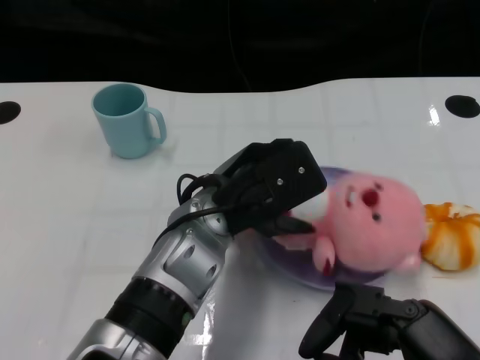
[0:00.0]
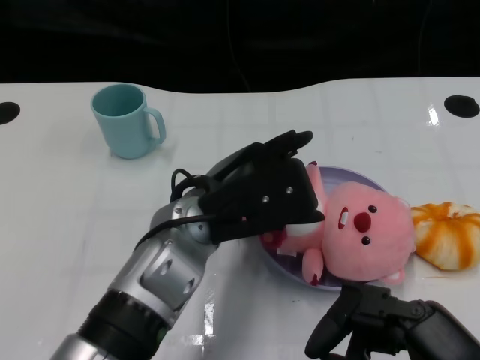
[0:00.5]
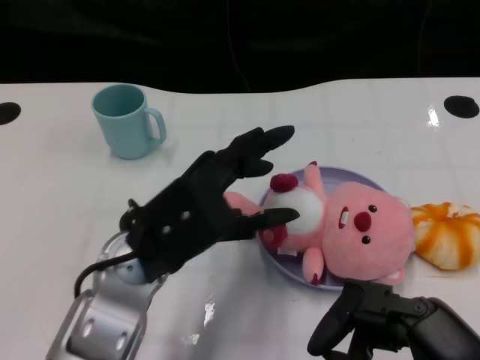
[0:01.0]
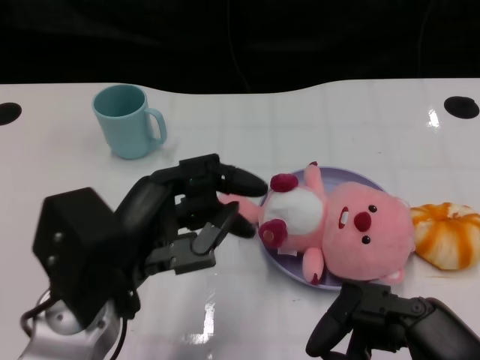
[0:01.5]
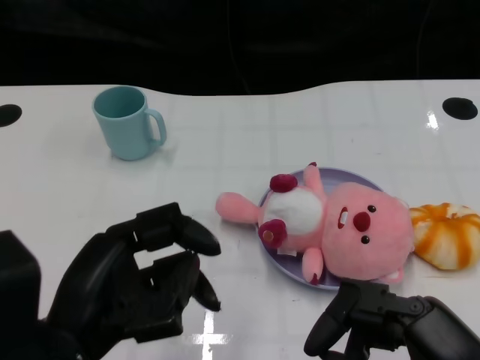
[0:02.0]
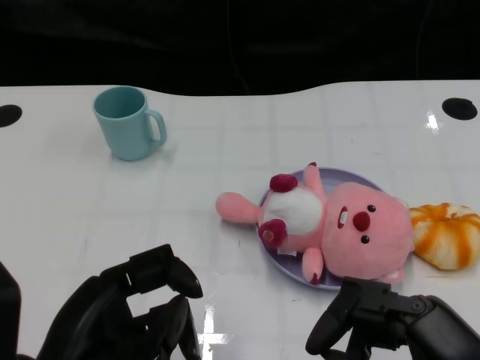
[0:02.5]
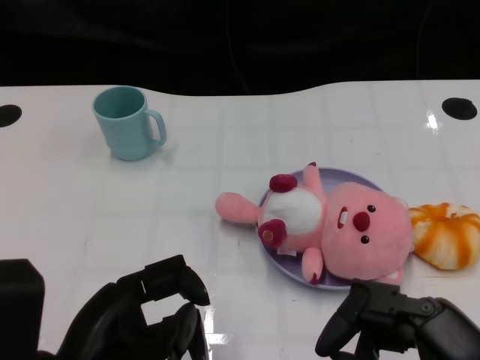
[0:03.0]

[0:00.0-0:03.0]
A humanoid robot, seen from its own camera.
Task of the whole recording: Pick up the doll on one side of the plate and place it into the plate.
0:00.0 to 0:01.5: The left hand goes approximately 15 cm to the left and backward.
0:01.5 to 0:03.0: The left hand moves backward, approximately 5 cm.

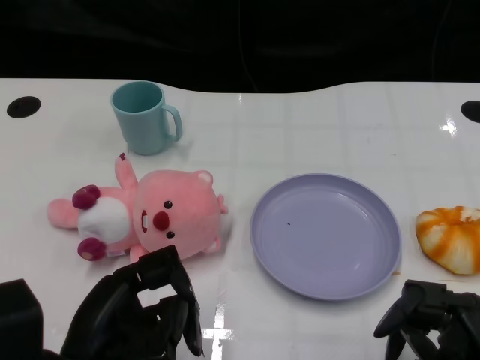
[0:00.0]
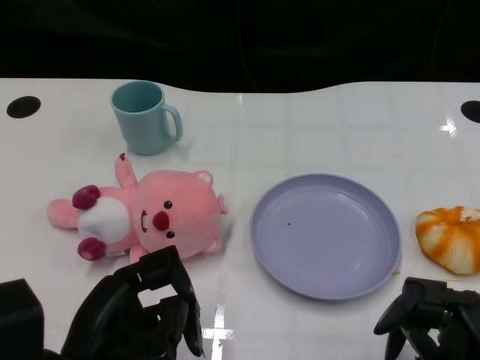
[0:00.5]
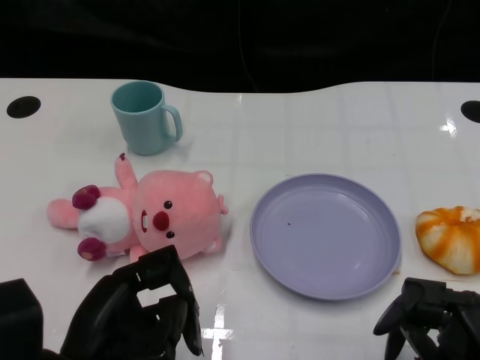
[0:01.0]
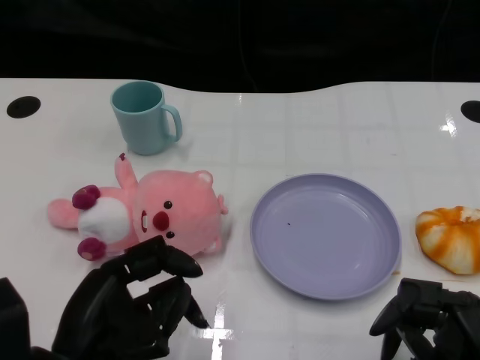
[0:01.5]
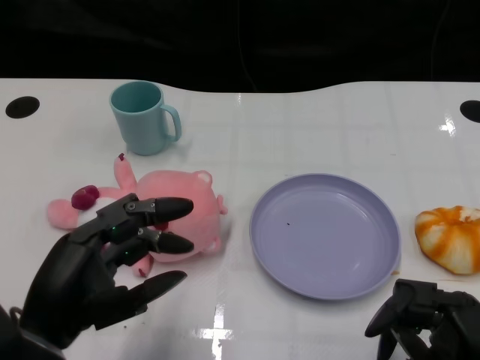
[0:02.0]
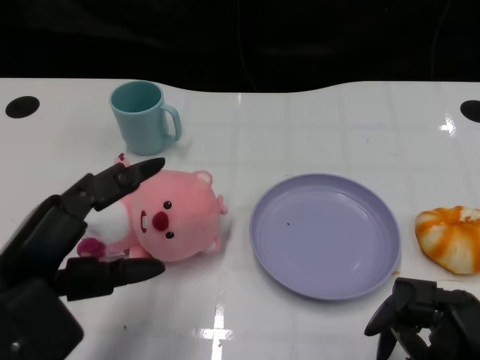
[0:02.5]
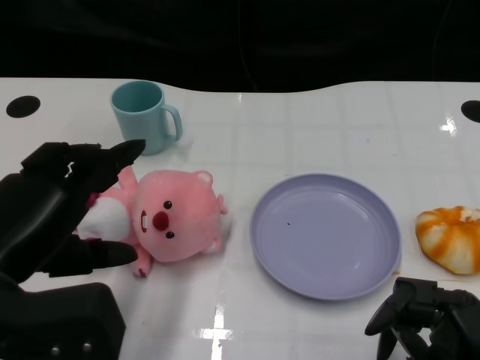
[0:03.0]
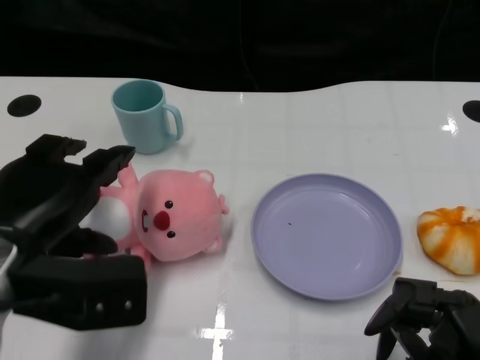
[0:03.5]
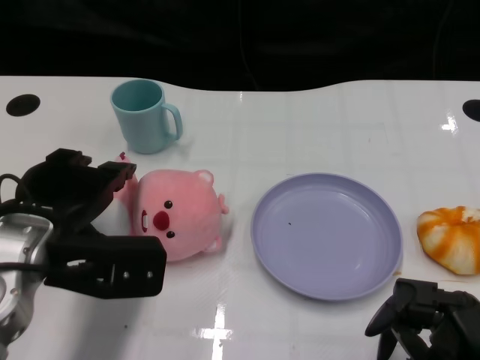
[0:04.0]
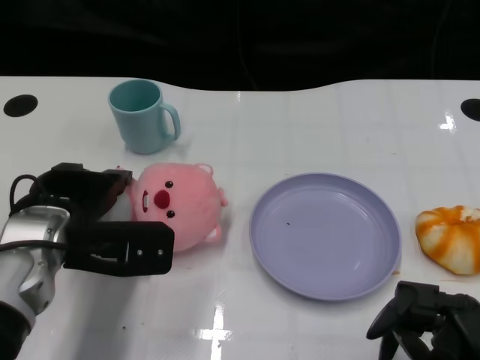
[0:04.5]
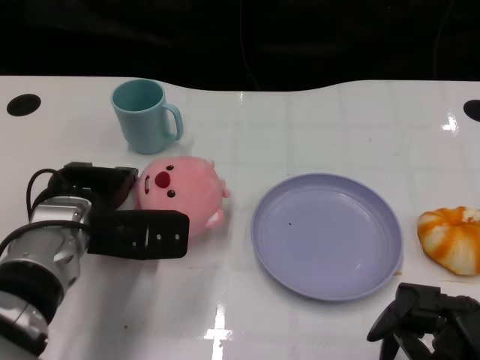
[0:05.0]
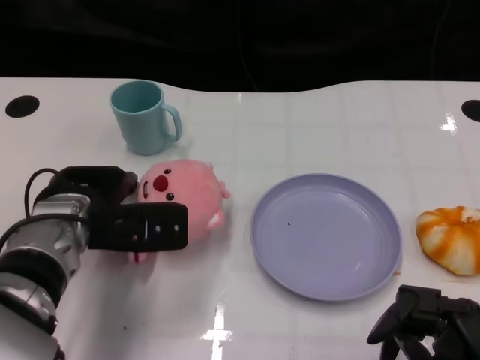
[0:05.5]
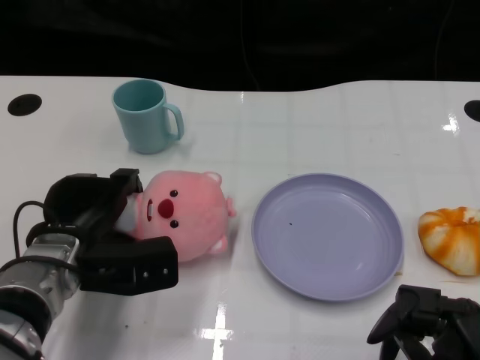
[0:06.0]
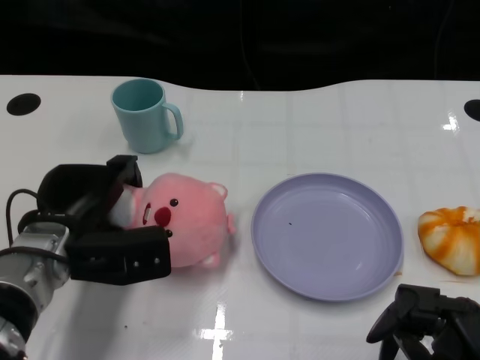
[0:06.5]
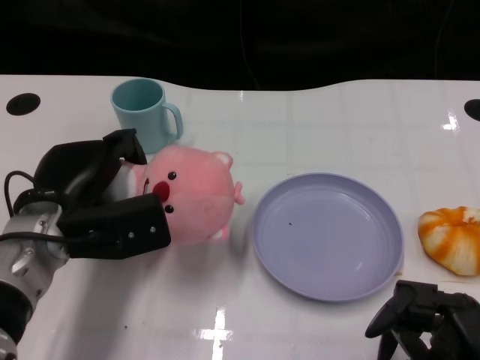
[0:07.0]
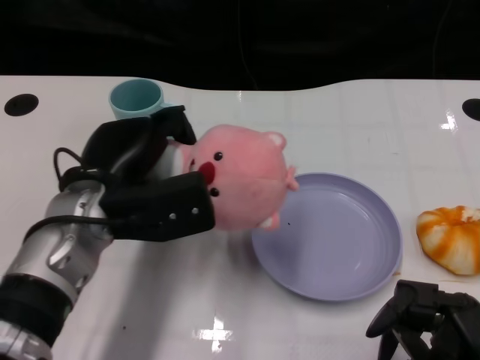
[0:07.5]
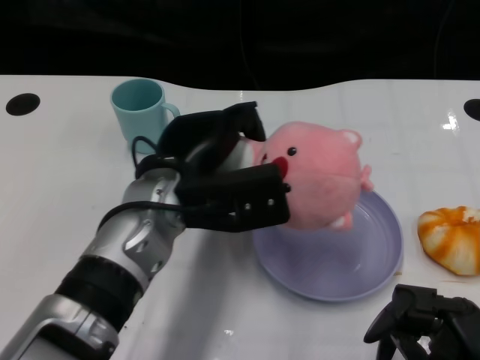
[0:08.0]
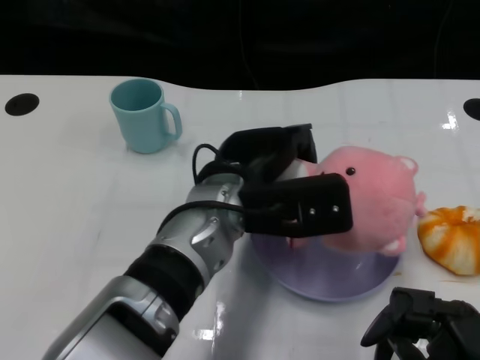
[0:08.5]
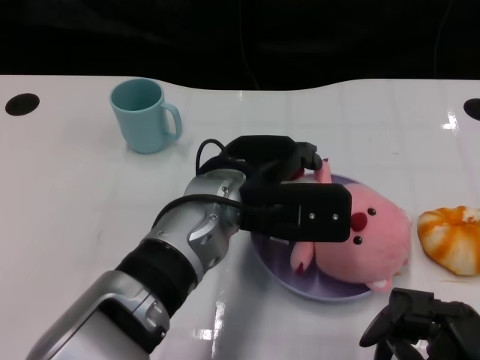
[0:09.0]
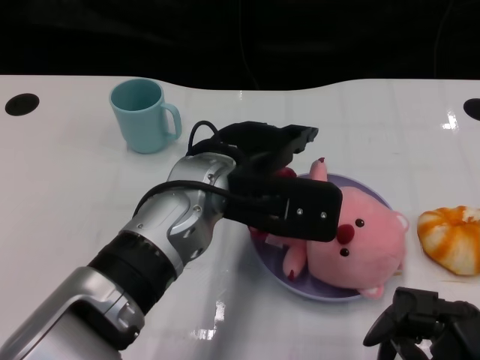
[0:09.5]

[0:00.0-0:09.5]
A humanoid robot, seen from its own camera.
Task of the whole recording: Pick up the doll on one side of the plate and place it into the plate.
Step, 0:01.0 to 0:06.5: Grasp the pink doll with the left gripper.
0:02.0 to 0:04.0: The left hand shifts about 10 cm forward.
0:04.0 to 0:05.5: The left hand is displaced forward by about 5 cm.
0:07.5 to 0:09.5: The left hand moves to the right, roughly 10 cm.

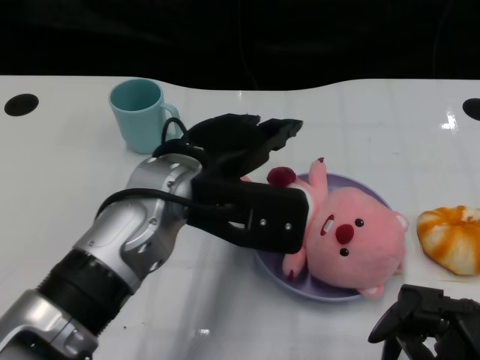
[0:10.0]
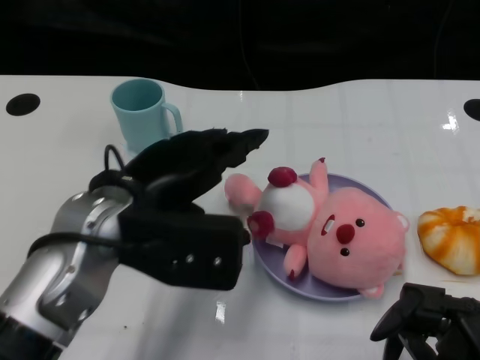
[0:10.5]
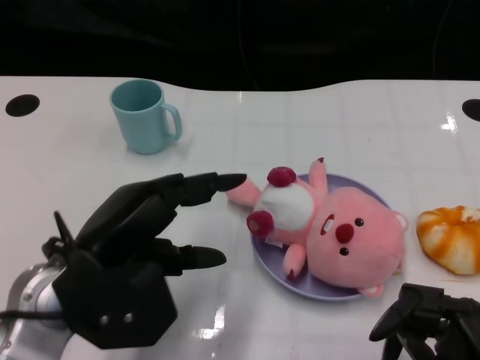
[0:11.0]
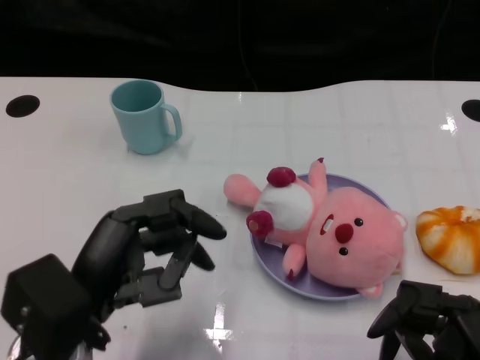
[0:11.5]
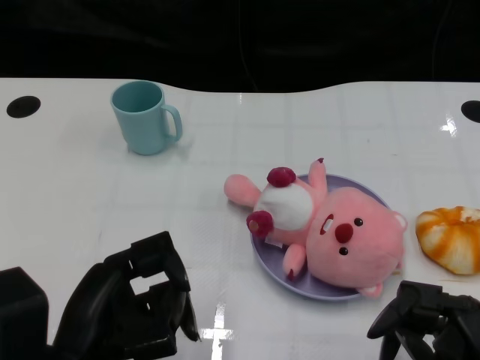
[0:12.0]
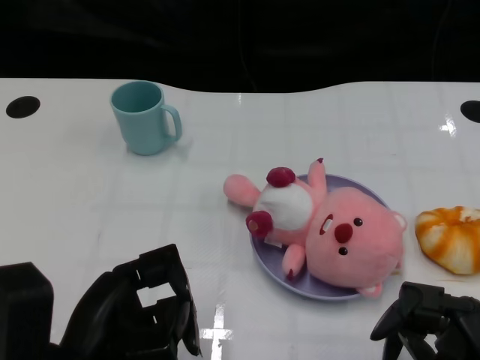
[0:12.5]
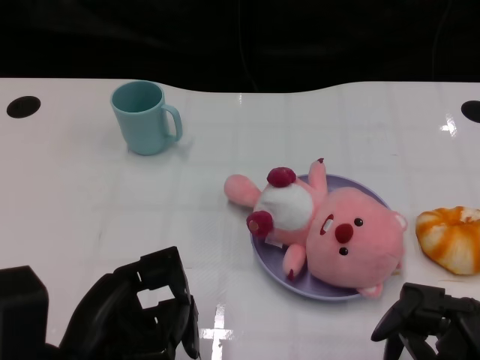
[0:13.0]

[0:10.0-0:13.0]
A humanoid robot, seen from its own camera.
Task of the whole recording: Pick up the doll on one side of the plate and place it into the plate.
0:10.0 to 0:11.5: The left hand shifts some 15 cm to the left, backward and downward.

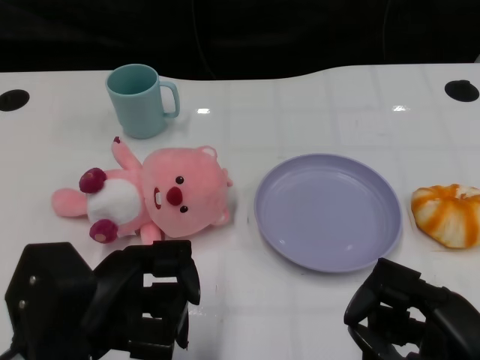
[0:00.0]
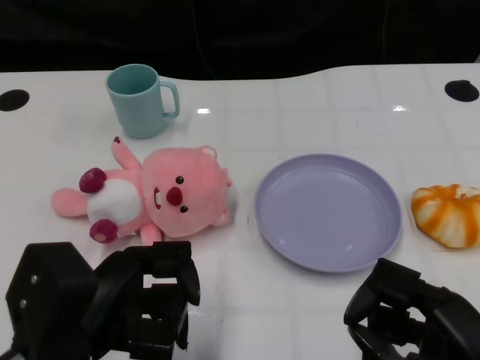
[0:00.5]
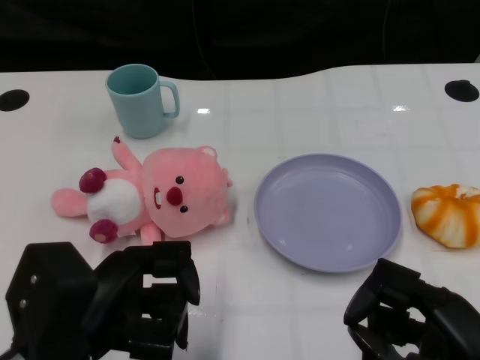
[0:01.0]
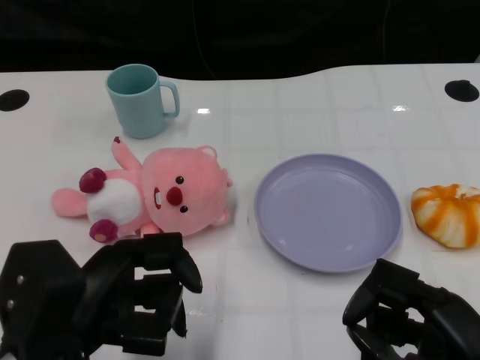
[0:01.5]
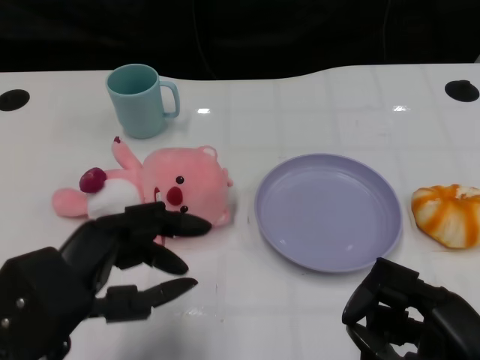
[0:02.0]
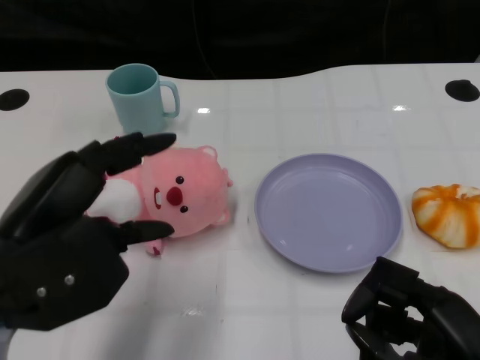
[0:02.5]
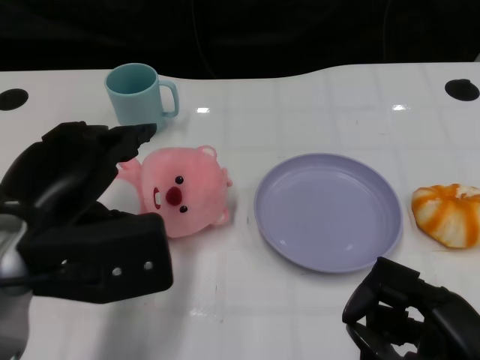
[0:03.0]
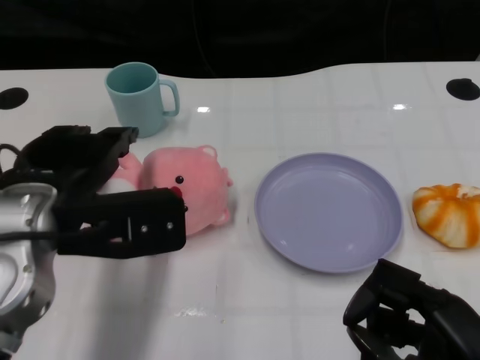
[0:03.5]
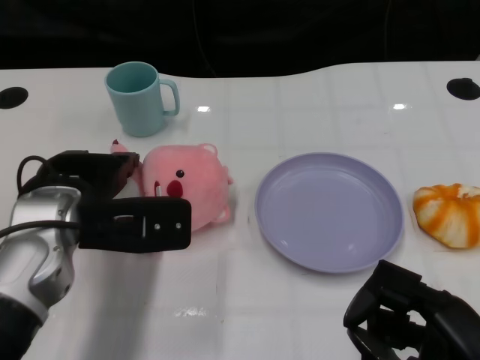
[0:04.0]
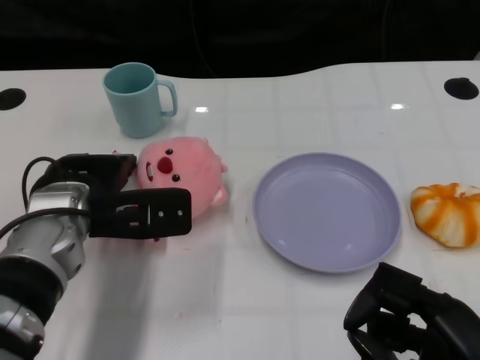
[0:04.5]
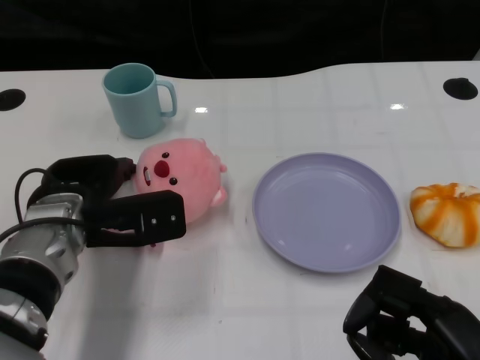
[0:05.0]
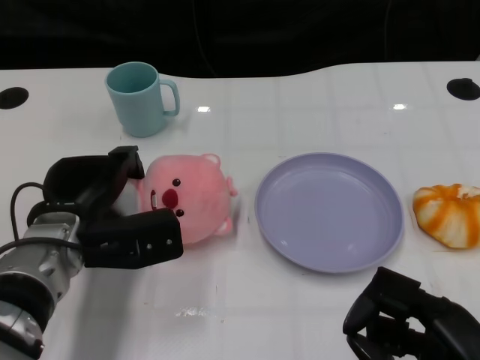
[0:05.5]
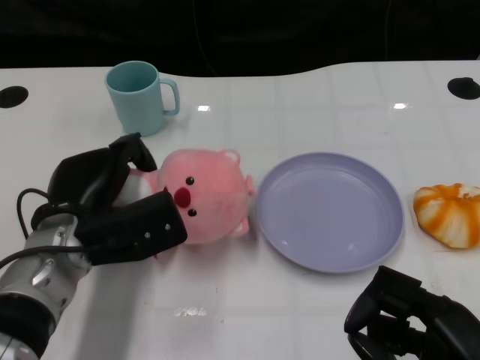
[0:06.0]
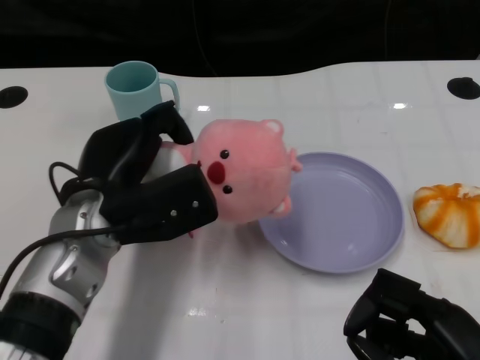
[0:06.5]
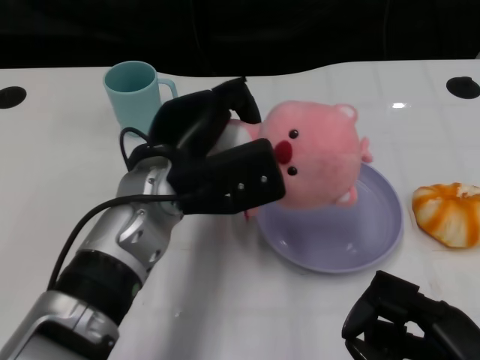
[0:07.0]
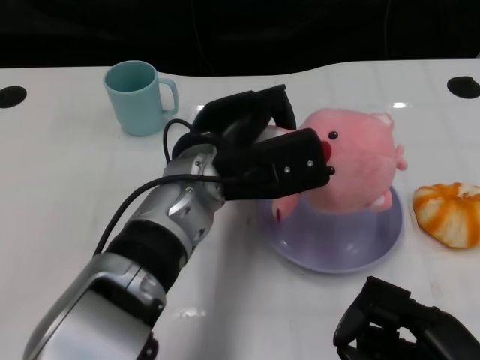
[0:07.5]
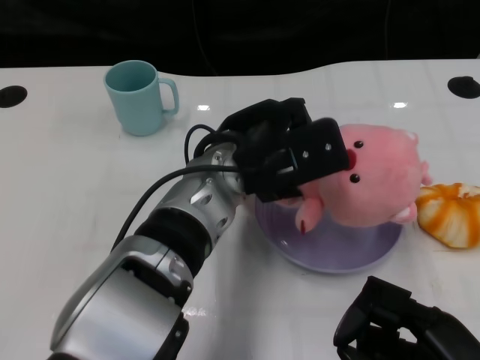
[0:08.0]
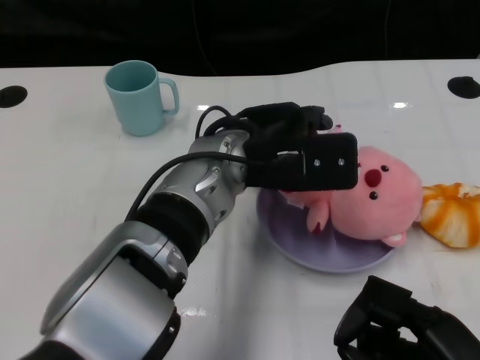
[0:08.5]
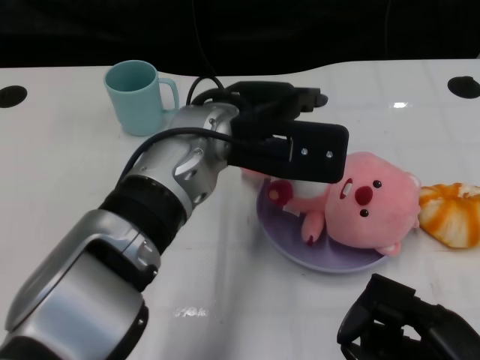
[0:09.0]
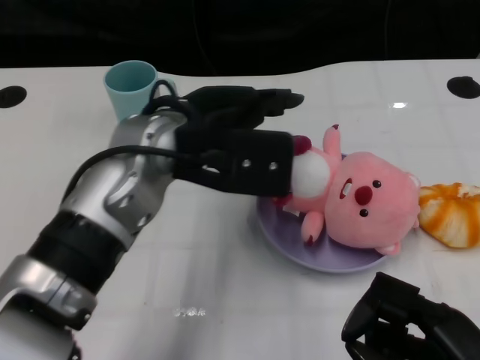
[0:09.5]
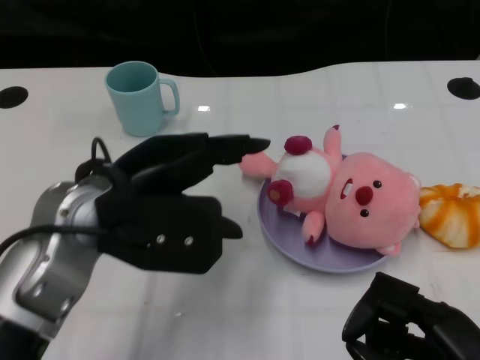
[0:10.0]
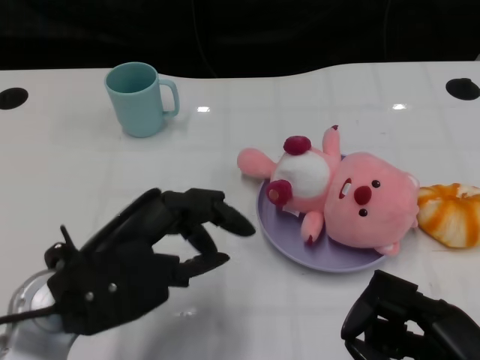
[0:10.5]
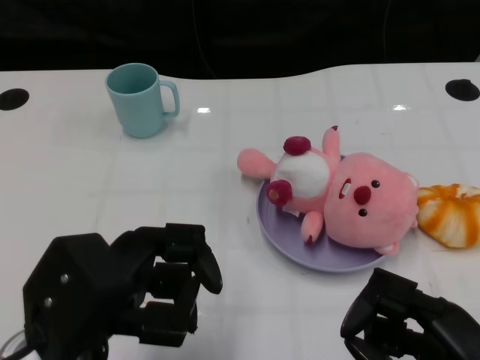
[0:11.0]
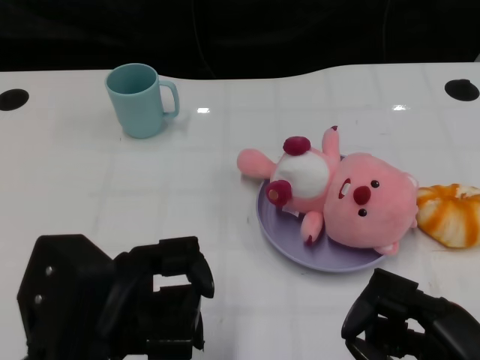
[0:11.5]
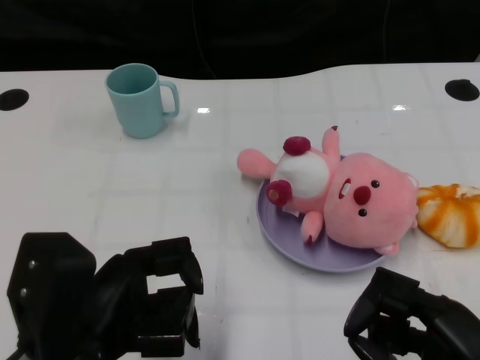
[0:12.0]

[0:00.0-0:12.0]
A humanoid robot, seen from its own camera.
Task of the whole recording: Pick up the doll on one side of the plate and place it into the plate.
Step, 0:01.5 to 0:06.0: Grasp the pink doll with the left gripper.
Step, 0:06.5 to 0:09.0: Place the pink doll into the plate with the left gripper.
0:02.0 to 0:04.0: The left hand is displaced forward by roughly 10 cm.
0:04.0 to 0:06.0: The left hand is displaced downward by some 5 cm.
0:06.0 to 0:08.0: The left hand shifts roughly 15 cm to the right and upward.
0:08.0 to 0:10.0: The left hand travels to the left and backward by about 15 cm.
0:10.0 to 0:12.0: The left hand goes about 10 cm backward and downward.
